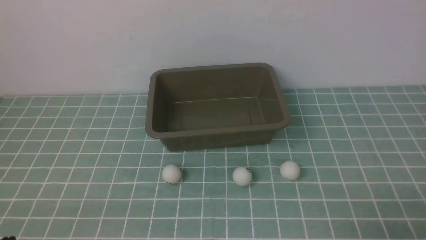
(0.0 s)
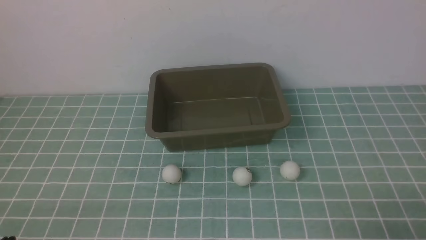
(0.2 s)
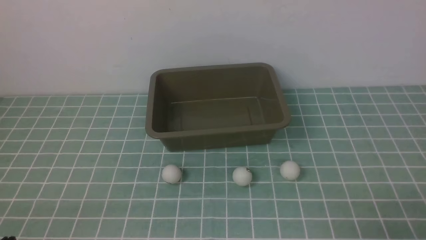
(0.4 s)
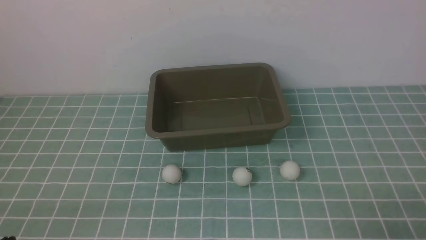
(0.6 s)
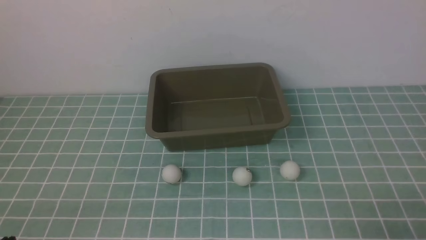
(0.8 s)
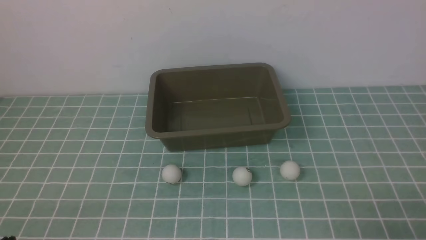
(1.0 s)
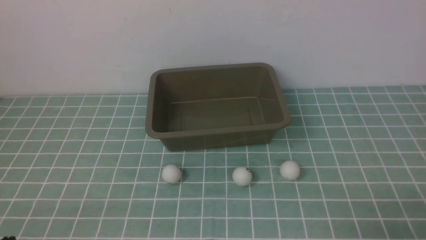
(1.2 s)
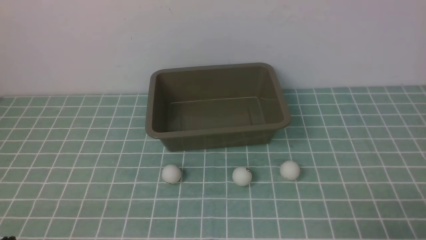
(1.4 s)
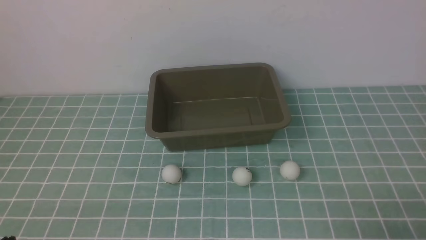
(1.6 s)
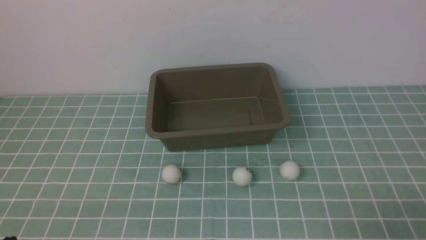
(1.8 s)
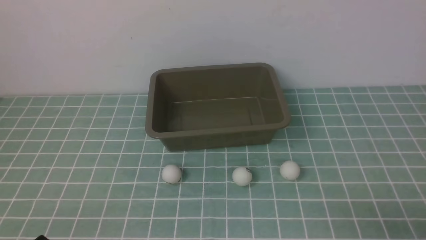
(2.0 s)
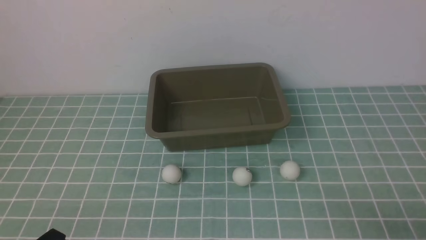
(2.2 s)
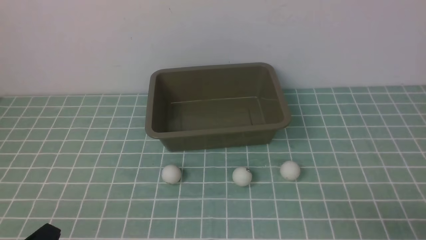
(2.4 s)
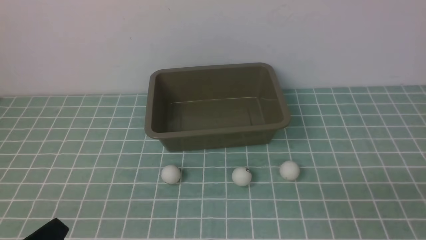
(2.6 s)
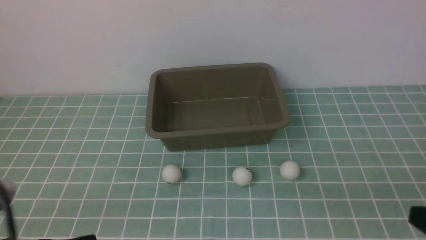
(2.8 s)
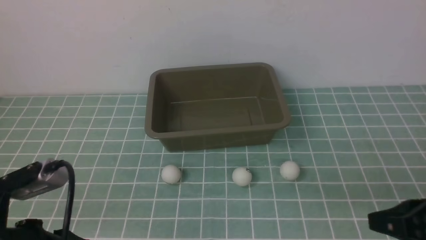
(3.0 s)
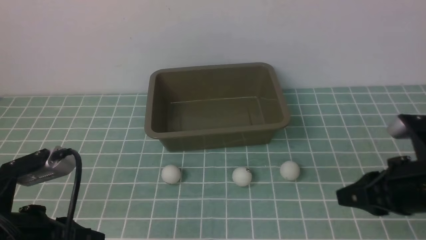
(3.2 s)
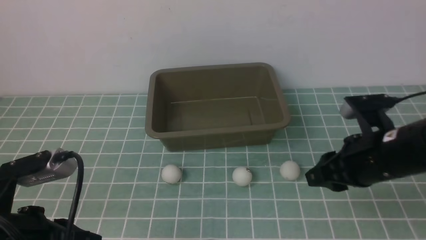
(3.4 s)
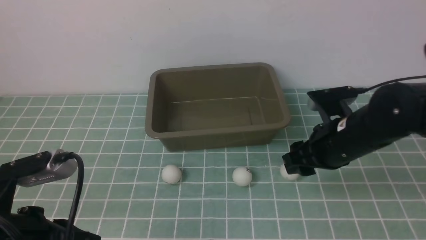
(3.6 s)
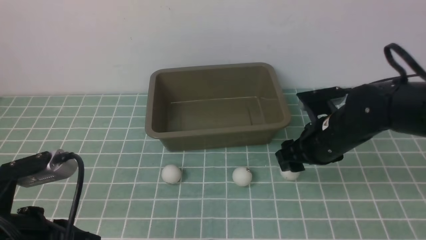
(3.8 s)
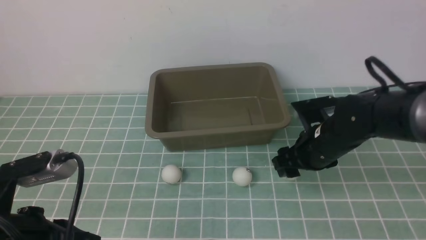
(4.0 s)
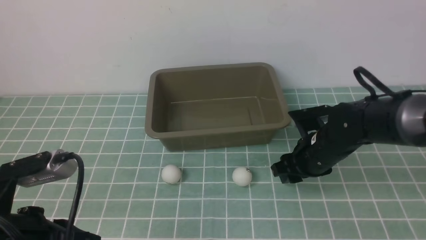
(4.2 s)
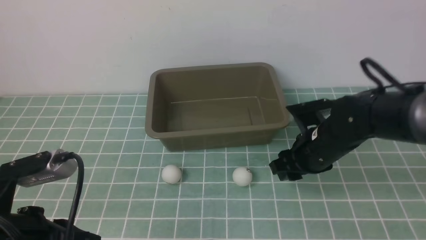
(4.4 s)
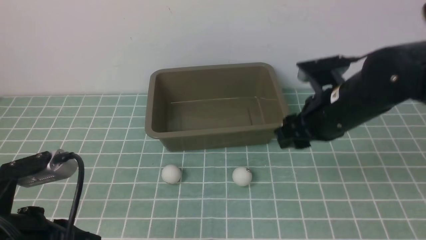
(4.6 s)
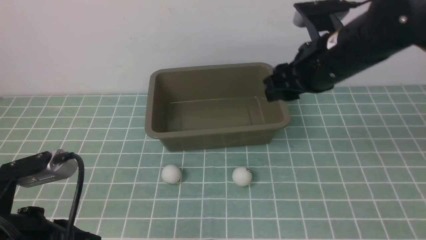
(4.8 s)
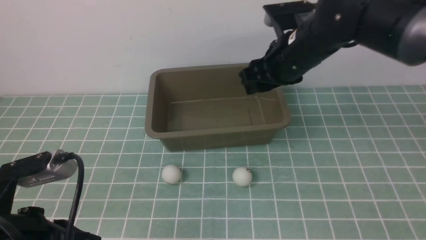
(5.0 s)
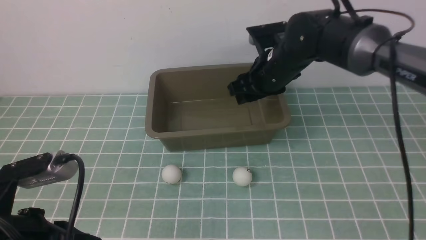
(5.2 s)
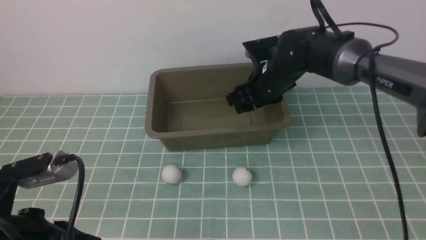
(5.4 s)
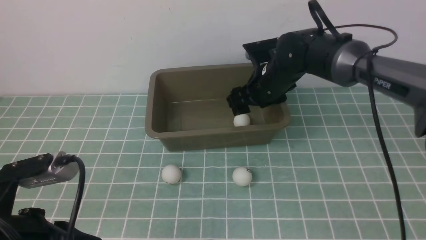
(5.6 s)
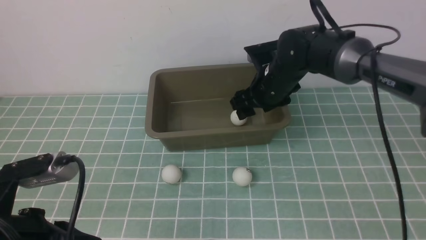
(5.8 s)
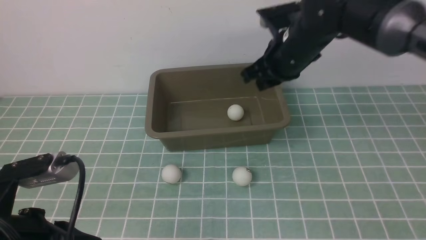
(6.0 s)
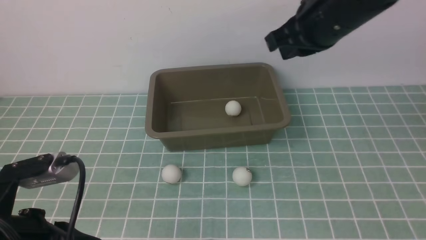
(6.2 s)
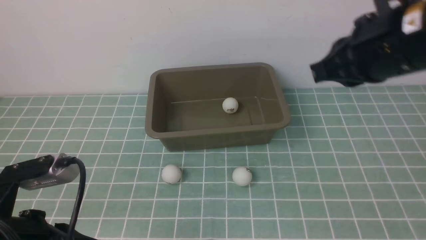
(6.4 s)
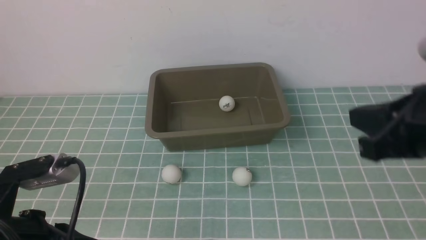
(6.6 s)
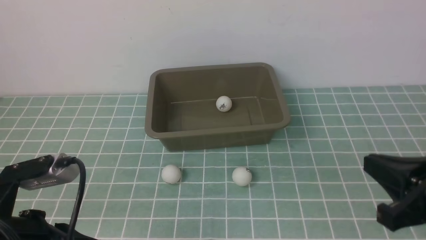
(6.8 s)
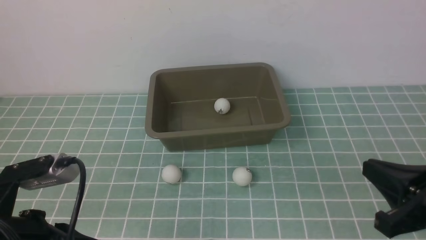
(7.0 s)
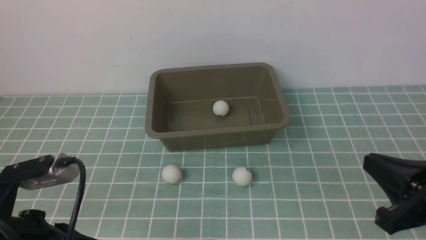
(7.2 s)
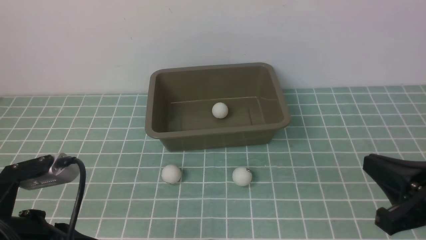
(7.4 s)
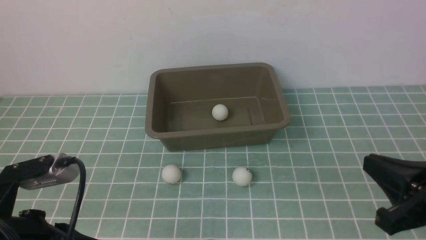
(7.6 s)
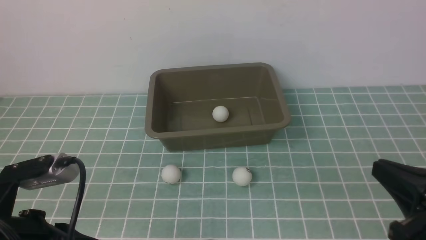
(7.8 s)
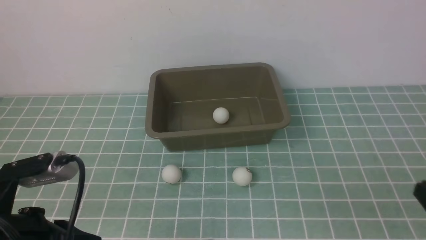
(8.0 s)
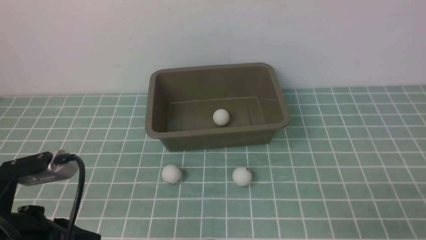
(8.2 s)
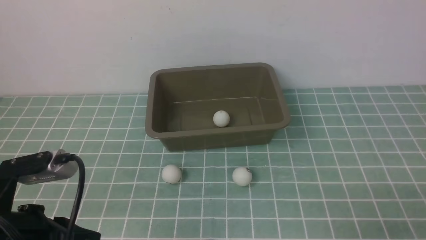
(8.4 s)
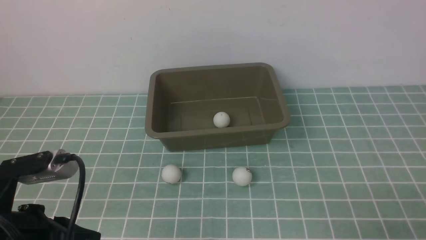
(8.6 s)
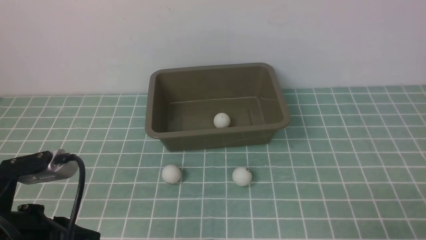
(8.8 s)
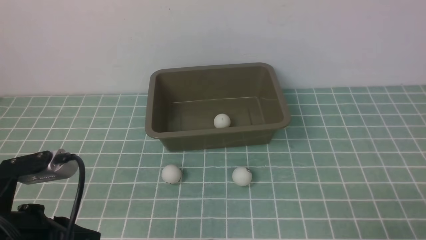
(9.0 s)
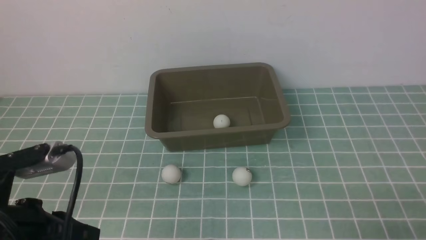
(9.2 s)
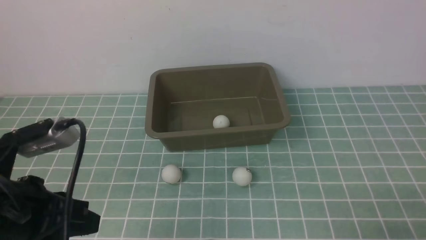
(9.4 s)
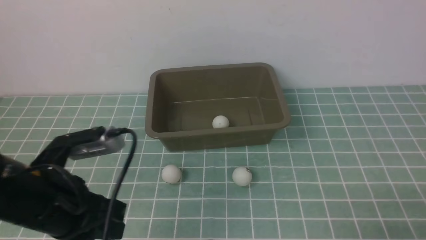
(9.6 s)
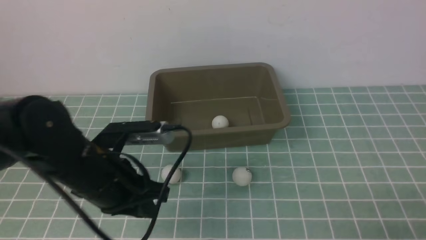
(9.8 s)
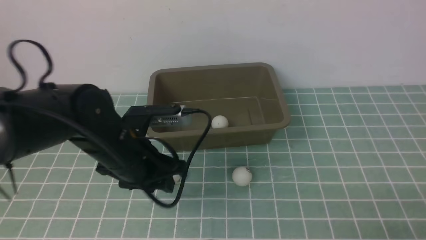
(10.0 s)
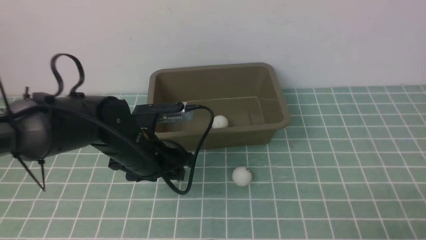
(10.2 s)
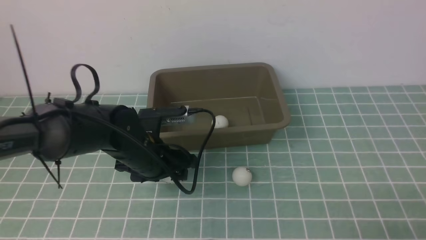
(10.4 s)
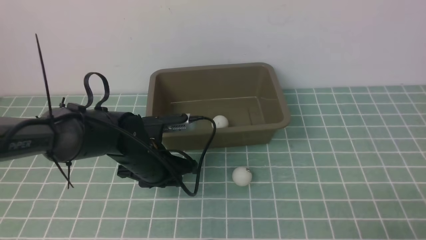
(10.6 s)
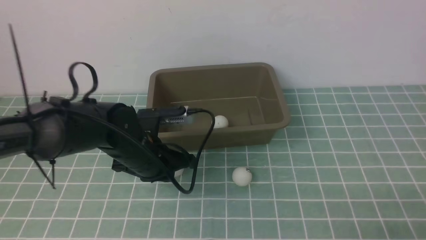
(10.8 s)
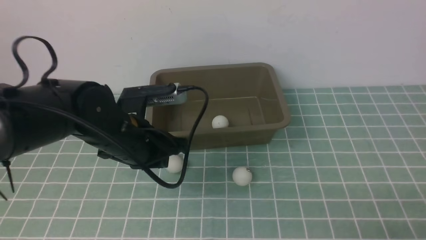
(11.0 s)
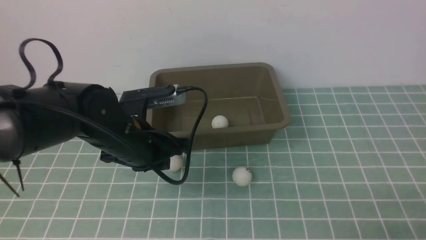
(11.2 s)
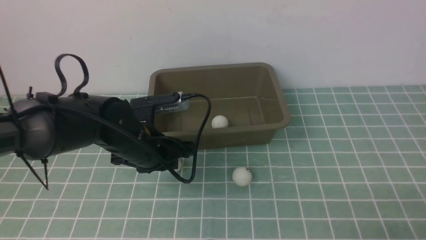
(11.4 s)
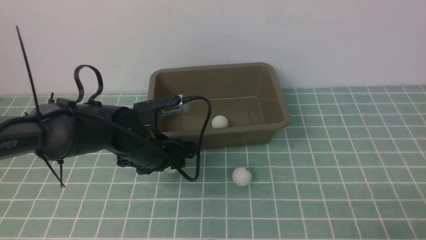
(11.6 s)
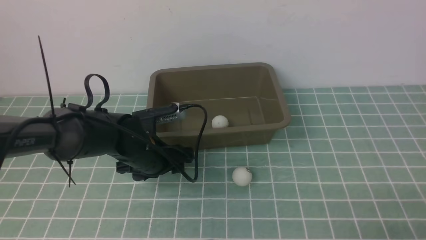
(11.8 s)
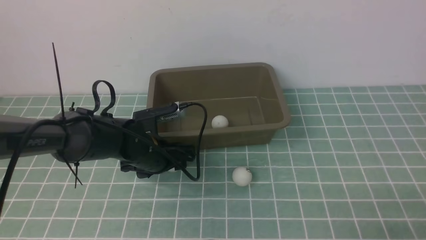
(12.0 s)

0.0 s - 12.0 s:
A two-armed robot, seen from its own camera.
Step, 0.0 s - 4.6 s: use the right arm to clamp the table tennis ball closest to it.
Step, 4.8 s - 5.6 s: use the right arm to put the table tennis ball into the box.
0.0 s - 1.6 s: Neither gripper changes place.
1.6 s - 3.0 s: The right gripper goes about 10 cm upward and forward; the left gripper heads upward, covering about 10 cm.
3.0 s - 4.4 s: The right gripper shifts some 20 cm forward and to the left, and opens up.
4.4 s - 6.0 s: The right gripper shifts some 10 cm upward and forward.
6.0 s - 7.6 s: The right gripper travels backward and to the right by about 30 cm, and closes.
7.6 s - 9.0 s: The right gripper is displaced downward, backward and to the right by some 10 cm.
9.0 s - 10.4 s: The left gripper travels forward, to the right and downward by about 25 cm, and opens its fingers.
10.4 s - 12.0 s: The left gripper closes, then reopens.

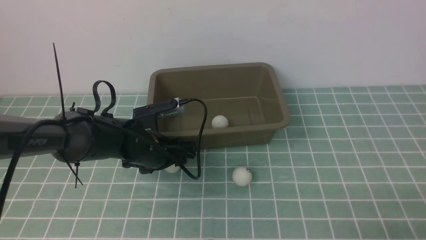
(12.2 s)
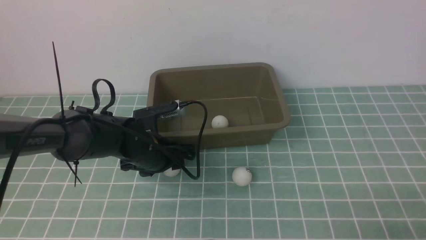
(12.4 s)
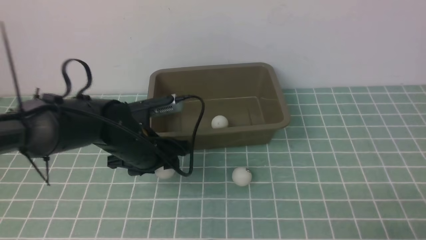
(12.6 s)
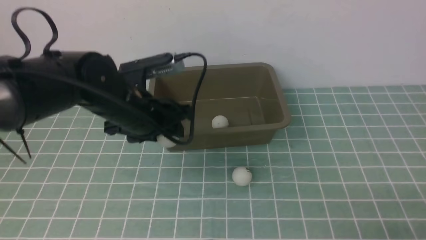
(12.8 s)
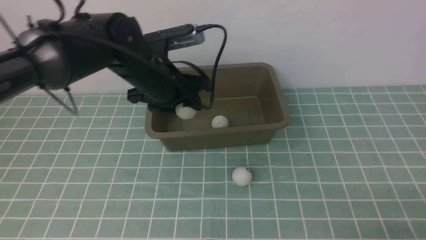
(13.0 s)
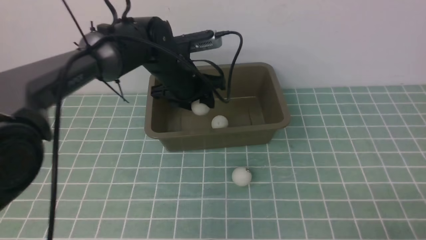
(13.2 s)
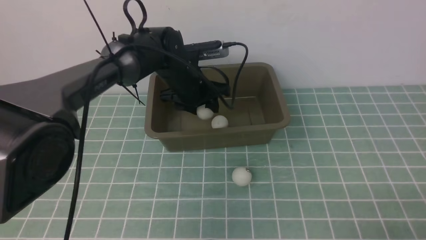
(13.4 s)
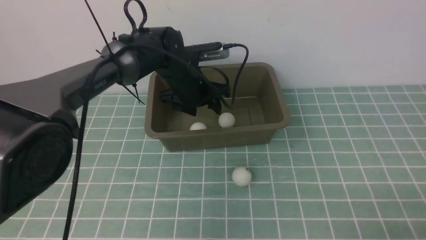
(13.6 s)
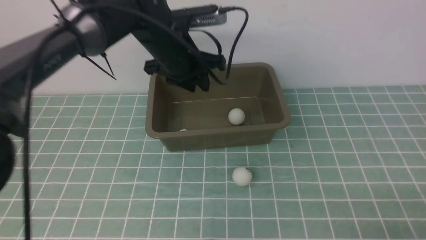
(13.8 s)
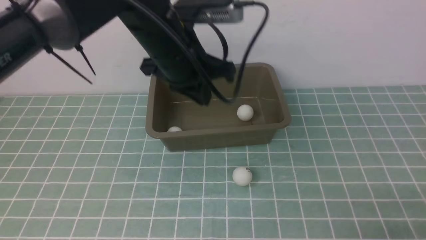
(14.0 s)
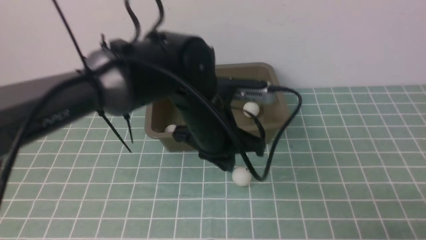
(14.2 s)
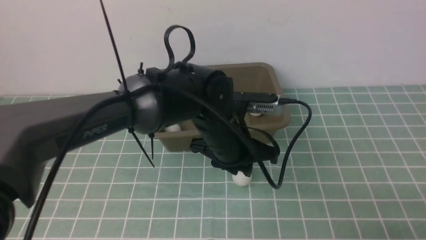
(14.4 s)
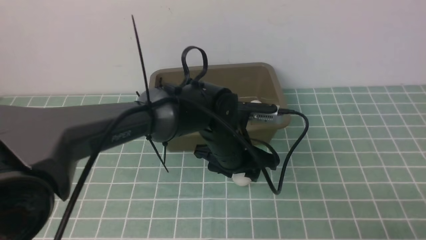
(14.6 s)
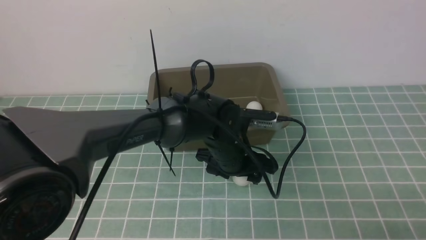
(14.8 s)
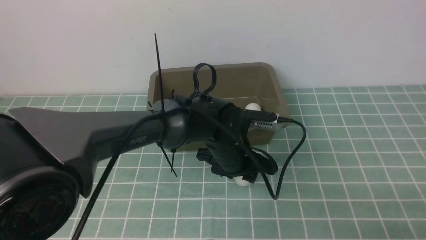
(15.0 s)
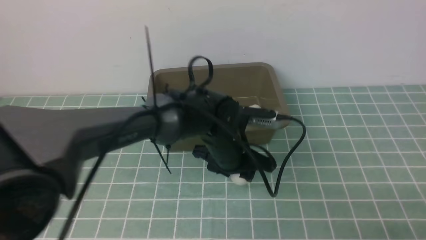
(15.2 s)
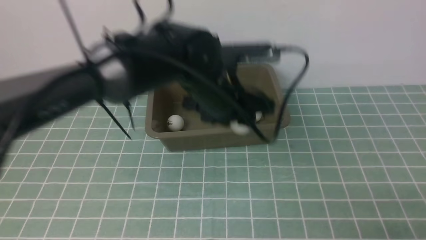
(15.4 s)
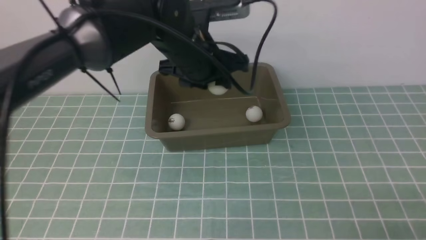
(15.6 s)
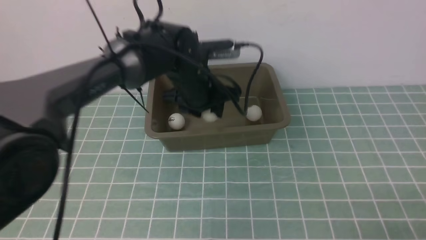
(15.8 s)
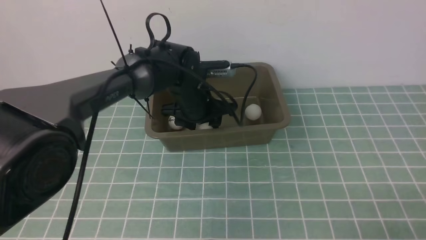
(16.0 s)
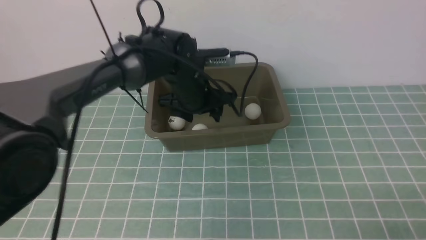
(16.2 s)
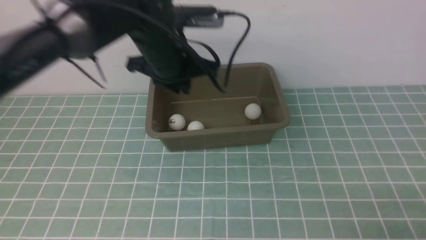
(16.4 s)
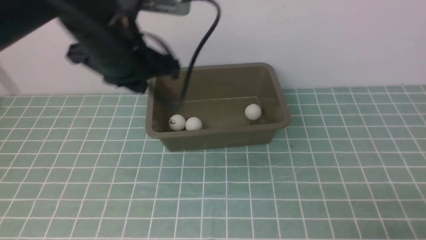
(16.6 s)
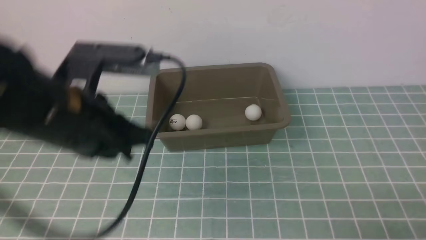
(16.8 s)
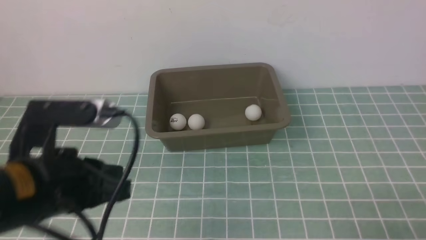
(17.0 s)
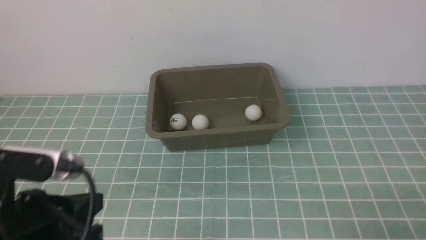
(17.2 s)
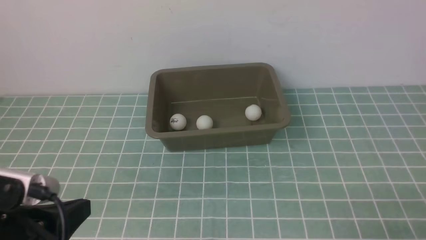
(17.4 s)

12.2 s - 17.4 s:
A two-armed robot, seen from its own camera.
Step, 12.8 s - 13.6 s: use the left arm to put the table tennis ball into the box.
Step, 13.8 s - 15.2 s: use the left arm to clamp the table tennis ball closest to it.
Step, 15.4 s - 16.2 s: use the left arm to put the table tennis ball into the box.
12.2 s - 14.0 s: The left gripper swings up and down, about 15 cm each way, with 2 reversals, and closes.
14.0 s - 15.6 s: The left gripper reaches some 15 cm downward, then returns, and opens.
15.6 s - 17.4 s: The left gripper travels backward and to the left by approximately 35 cm, and closes its fingers.
